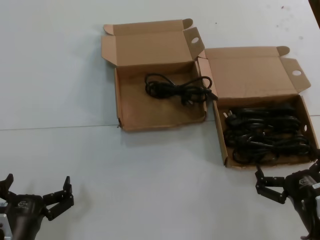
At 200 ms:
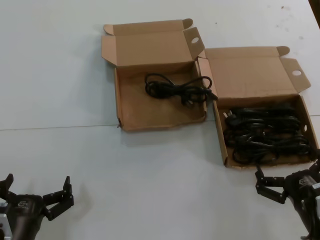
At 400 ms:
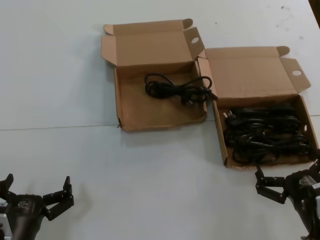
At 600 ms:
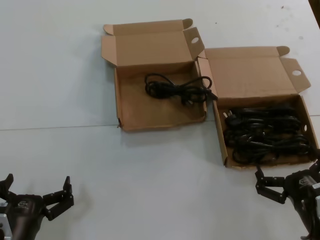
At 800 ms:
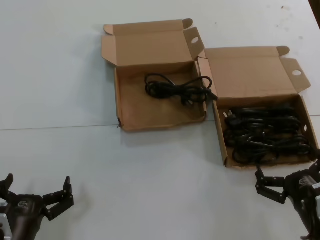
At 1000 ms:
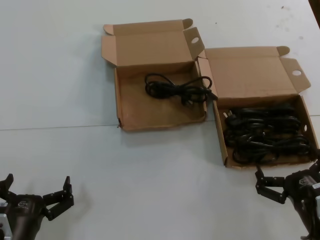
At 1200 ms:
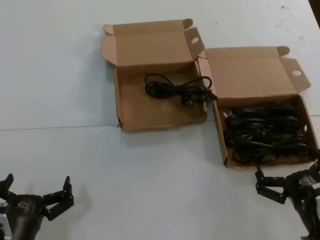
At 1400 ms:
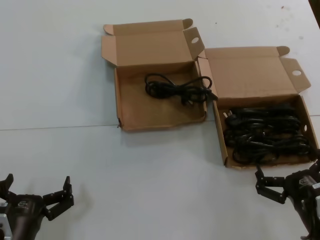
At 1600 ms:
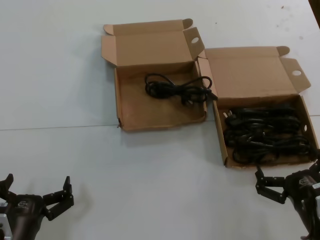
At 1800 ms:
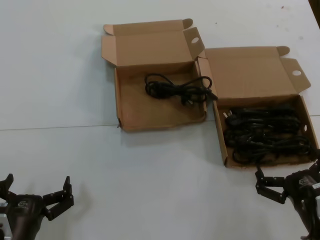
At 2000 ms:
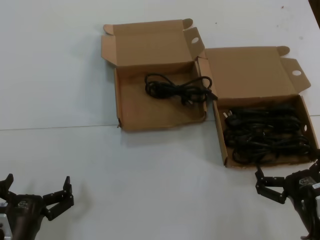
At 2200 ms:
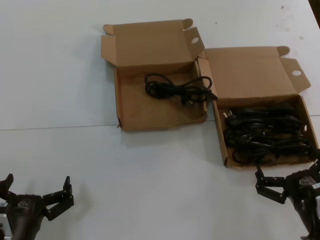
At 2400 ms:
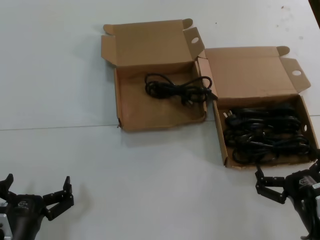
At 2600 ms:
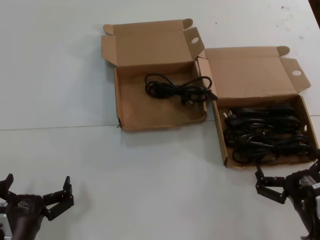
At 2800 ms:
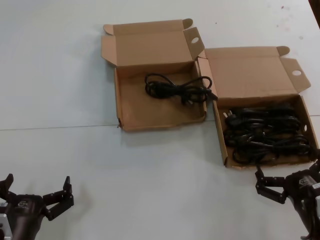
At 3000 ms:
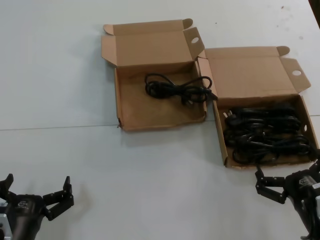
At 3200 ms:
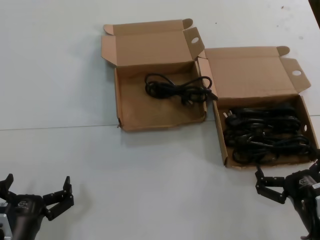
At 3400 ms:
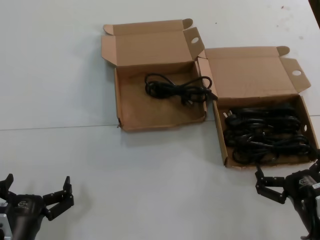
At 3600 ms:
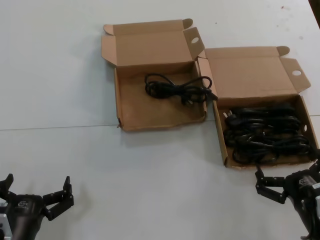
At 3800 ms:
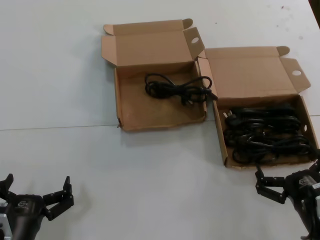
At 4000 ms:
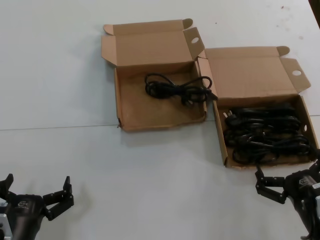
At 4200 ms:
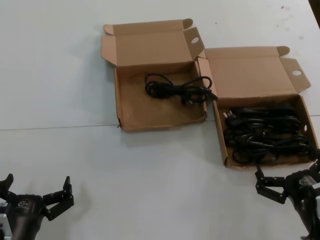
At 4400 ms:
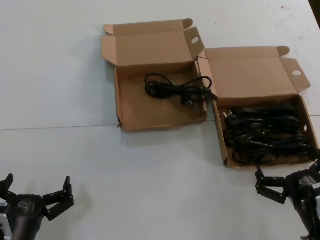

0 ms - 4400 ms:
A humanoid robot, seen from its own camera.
Task of the whole recording: take the parts from the box containing them and put them into an empty box.
0 ms - 4400 ms: Neither hand changes place.
